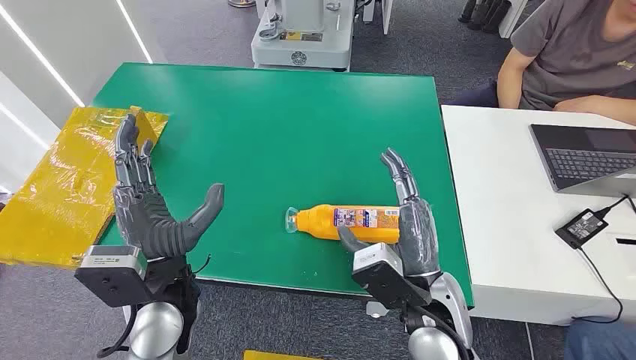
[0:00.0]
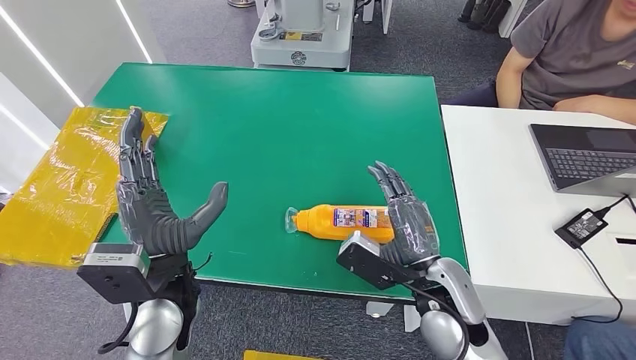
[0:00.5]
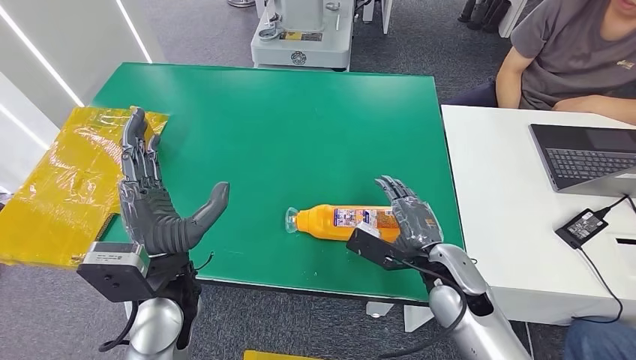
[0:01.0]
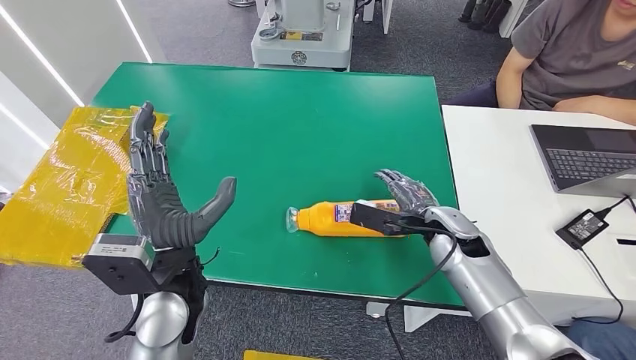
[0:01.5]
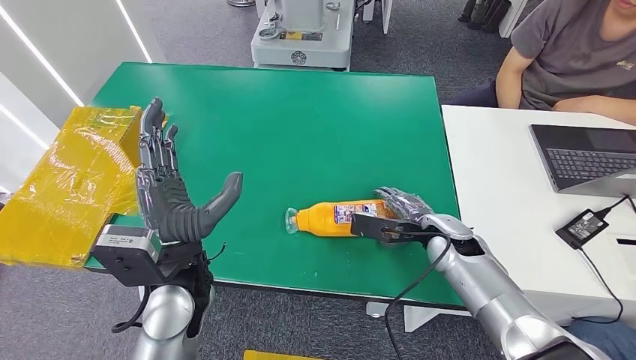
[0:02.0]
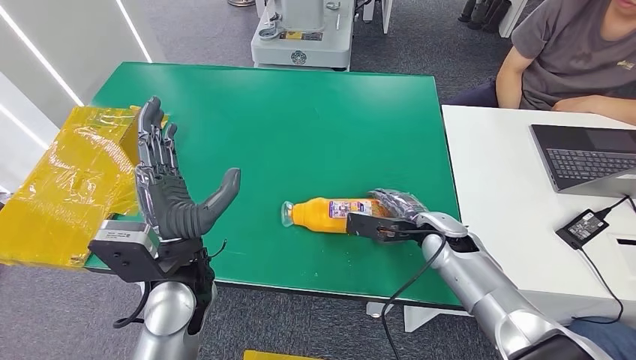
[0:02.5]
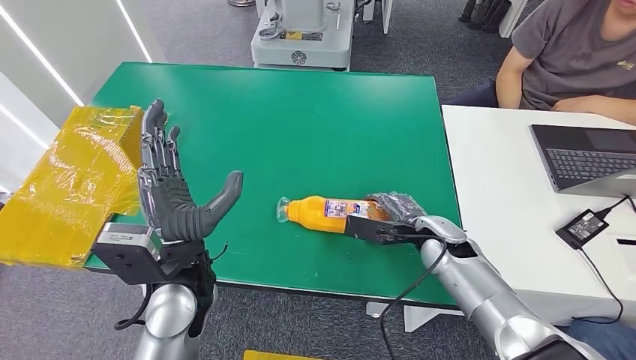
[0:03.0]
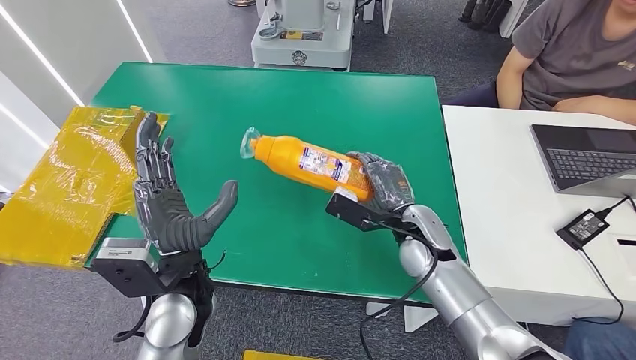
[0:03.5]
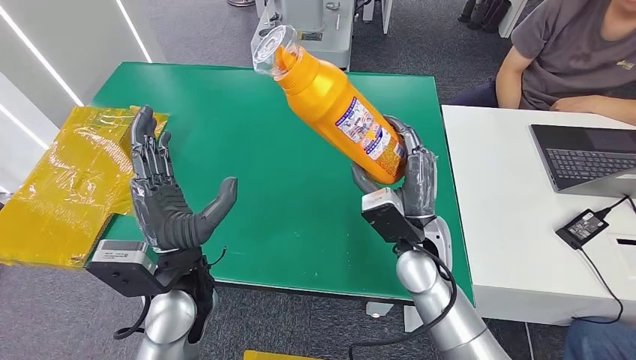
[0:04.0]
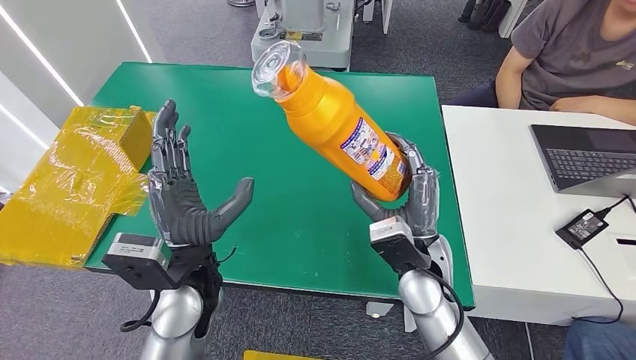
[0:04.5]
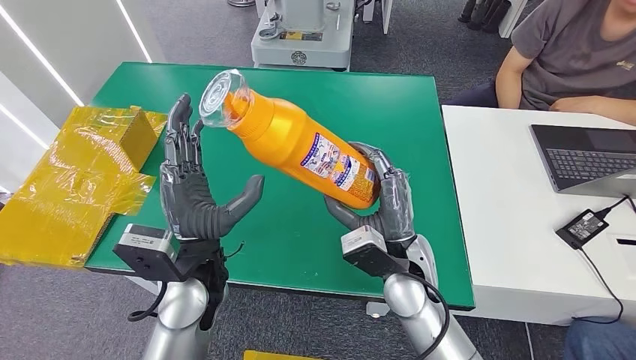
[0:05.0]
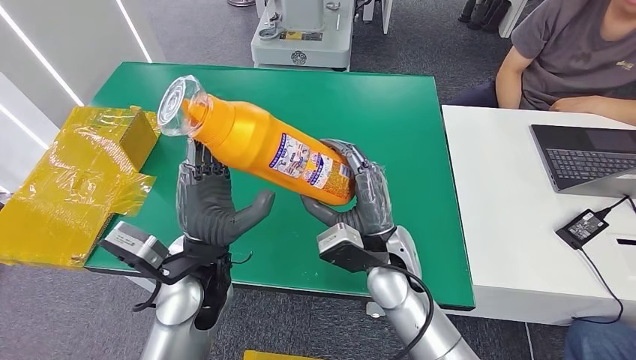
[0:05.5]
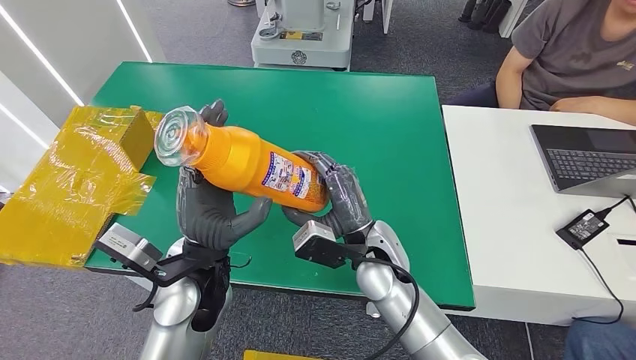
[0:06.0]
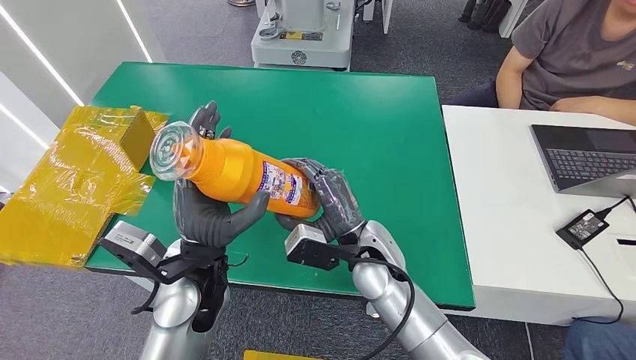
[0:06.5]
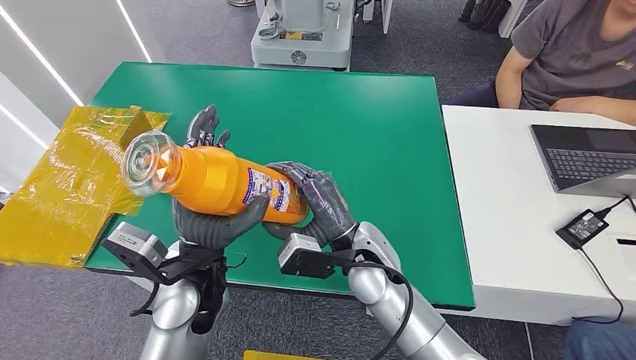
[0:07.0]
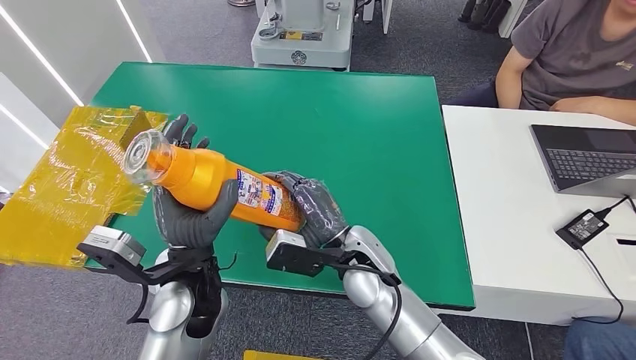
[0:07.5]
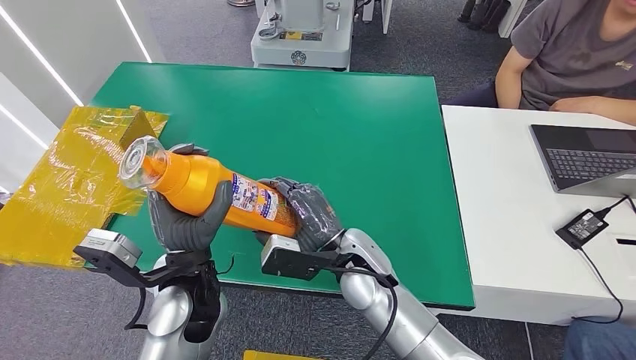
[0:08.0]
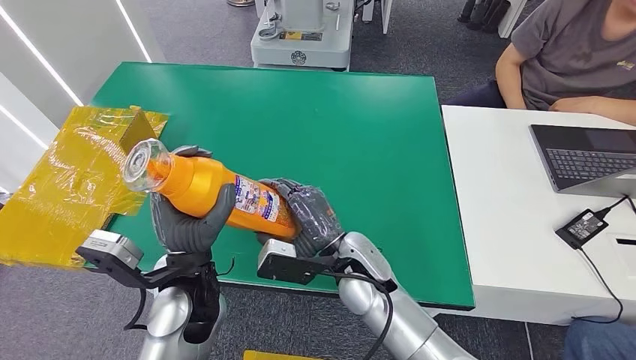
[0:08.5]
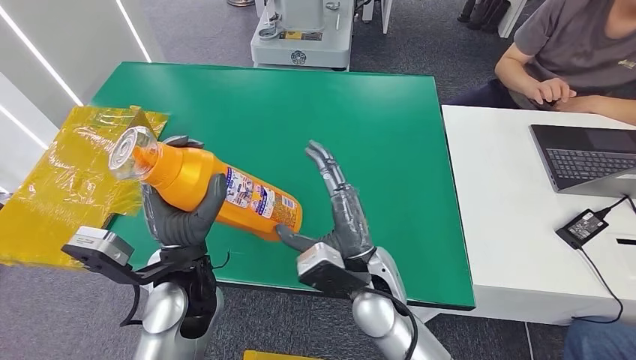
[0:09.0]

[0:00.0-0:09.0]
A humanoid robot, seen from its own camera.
Step, 0:00.0 to 0:03.5: Pick up the bottle from the table.
0:02.0 to 0:04.5: The right hand travels to the left and backward by some 15 cm.
0:04.5 to 0:07.0: The right hand heads to the left, covering roughly 5 cm.
0:07.0 to 0:09.0: The hands move only a little.

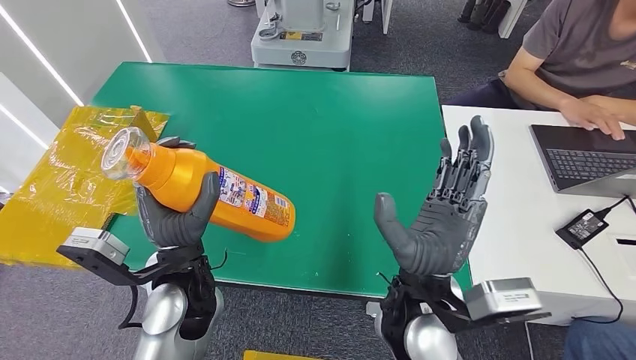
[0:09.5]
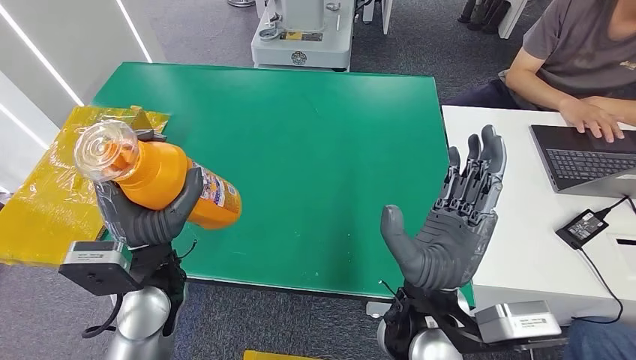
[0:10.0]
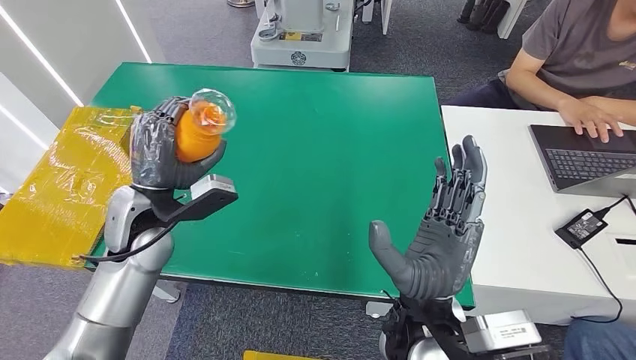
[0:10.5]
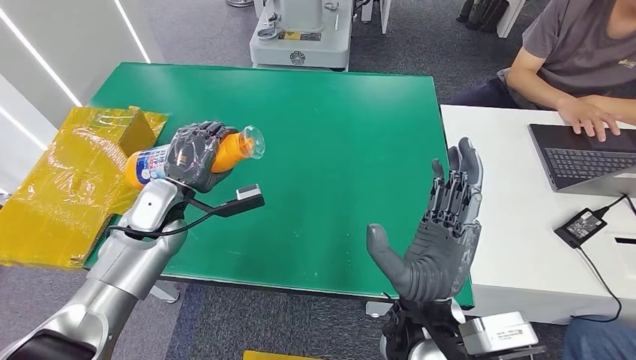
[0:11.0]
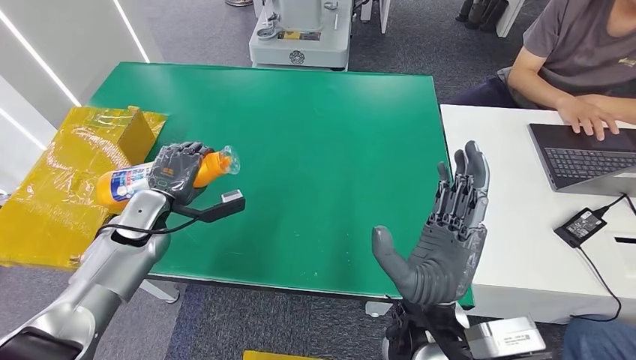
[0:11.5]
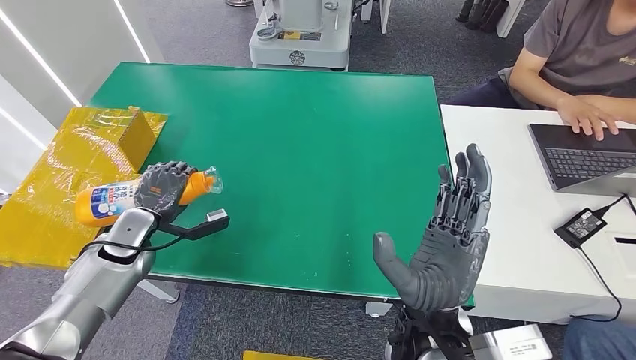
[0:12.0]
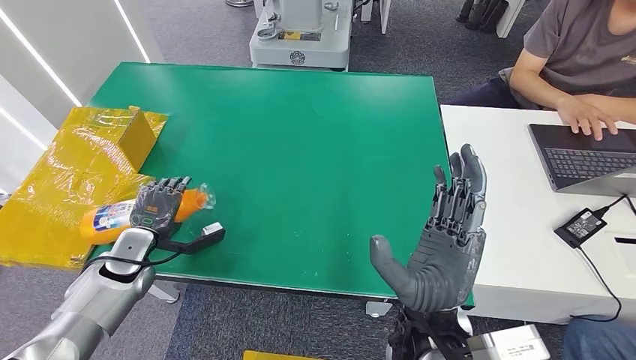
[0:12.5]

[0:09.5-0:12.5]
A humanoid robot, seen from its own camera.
Step, 0:09.5 to 0:12.5: Turn the bottle to the front side.
0:11.0 to 0:12.5: The left hand shifts some 15 cm to the left, backward and downward.
